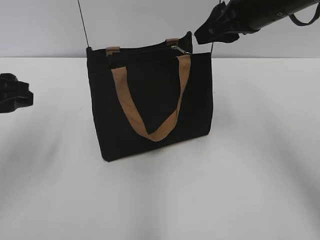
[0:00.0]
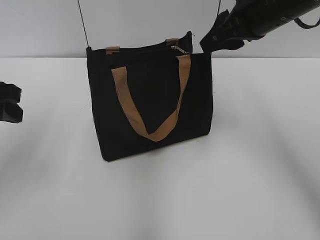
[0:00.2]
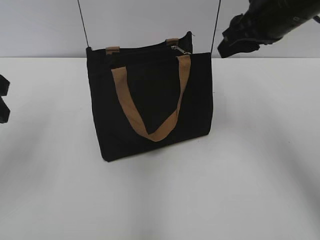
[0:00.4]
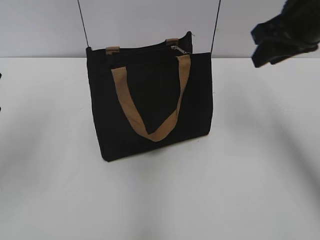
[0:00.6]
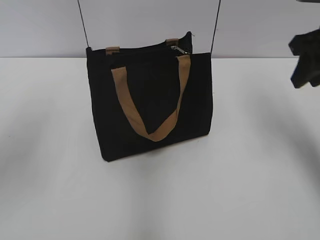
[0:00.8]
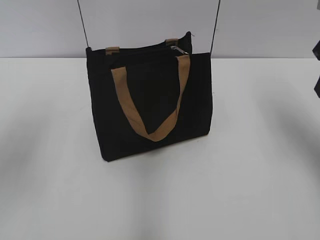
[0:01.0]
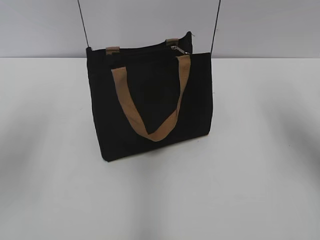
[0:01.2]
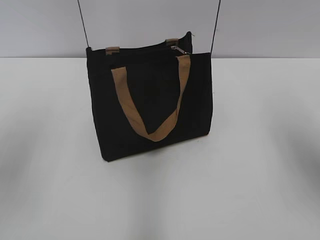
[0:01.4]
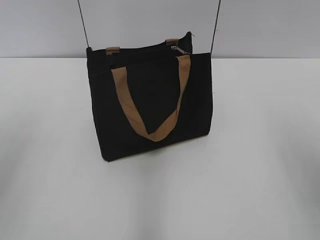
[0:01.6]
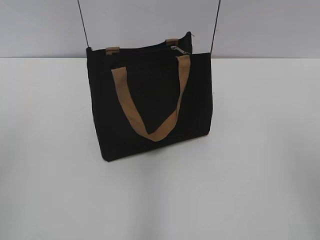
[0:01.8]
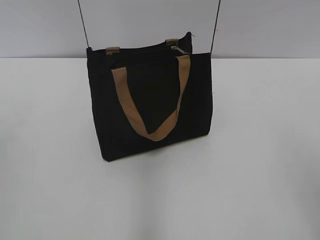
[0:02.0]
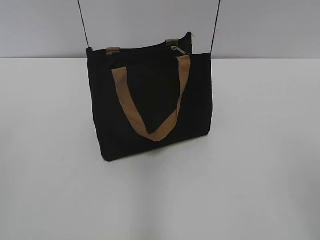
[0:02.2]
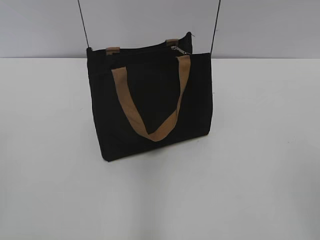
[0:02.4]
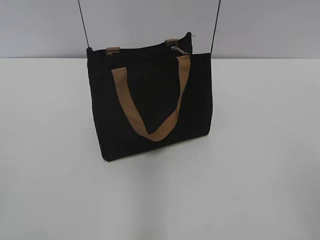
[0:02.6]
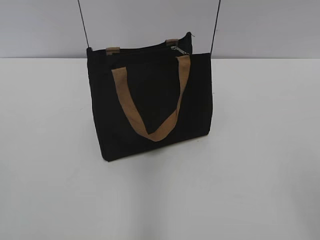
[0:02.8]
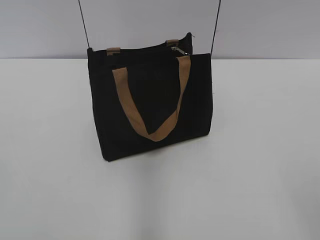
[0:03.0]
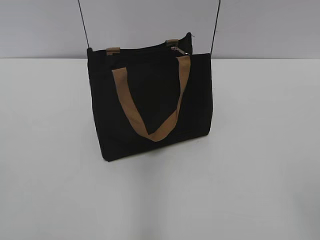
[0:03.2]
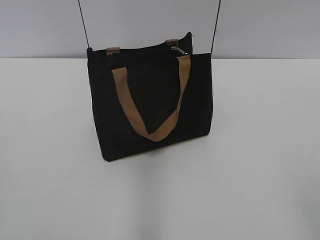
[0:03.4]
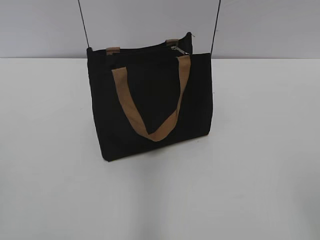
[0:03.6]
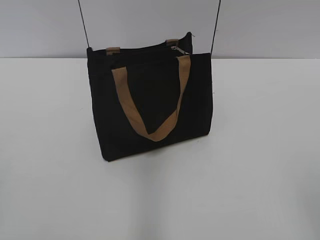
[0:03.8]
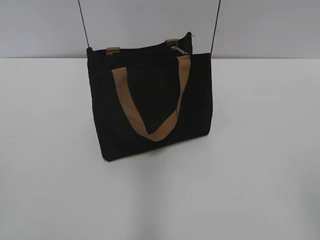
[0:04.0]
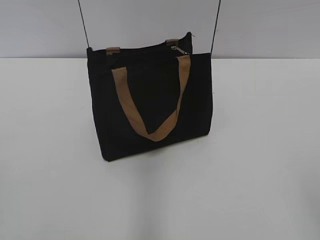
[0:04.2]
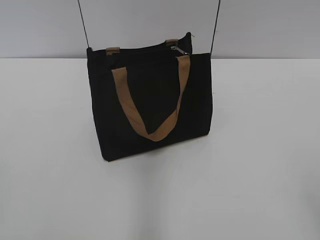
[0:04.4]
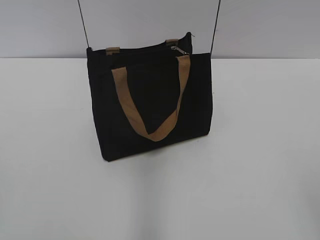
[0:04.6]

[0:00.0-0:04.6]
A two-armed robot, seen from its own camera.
0:00.0 to 0:01.6: The right gripper travels backward and to the right by roughly 20 cm; the left gripper is displaced backward and upward by approximately 10 cm.
0:01.6 to 0:03.0: The left gripper is displaced backward by roughly 15 cm.
